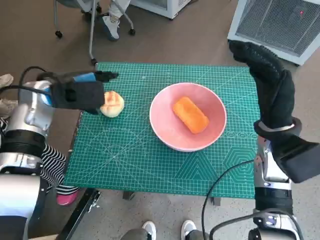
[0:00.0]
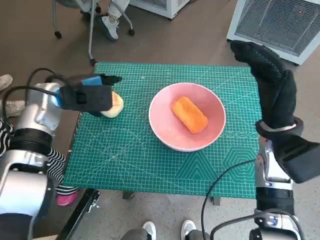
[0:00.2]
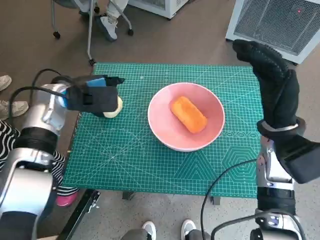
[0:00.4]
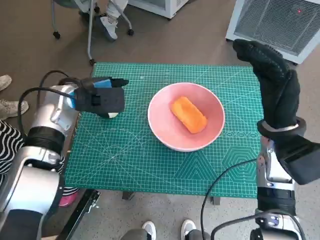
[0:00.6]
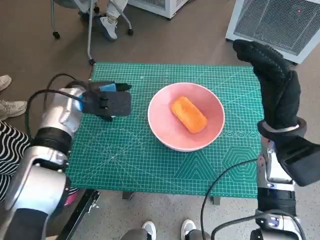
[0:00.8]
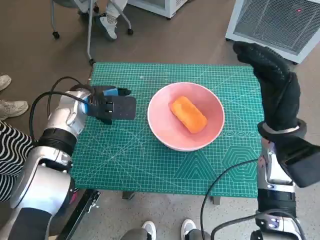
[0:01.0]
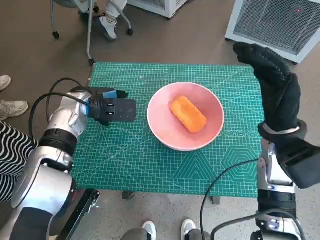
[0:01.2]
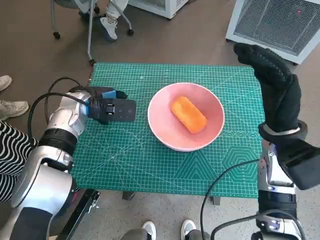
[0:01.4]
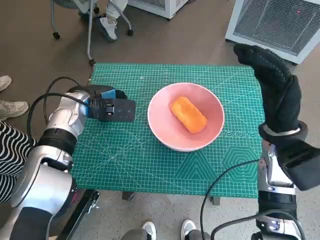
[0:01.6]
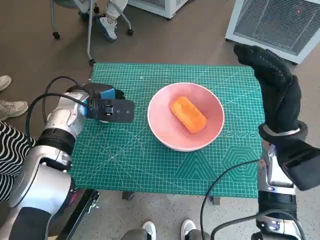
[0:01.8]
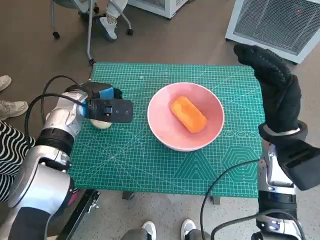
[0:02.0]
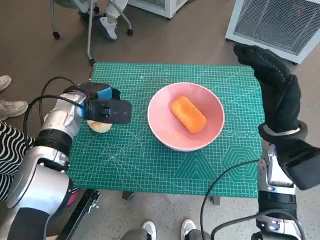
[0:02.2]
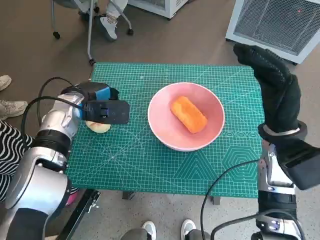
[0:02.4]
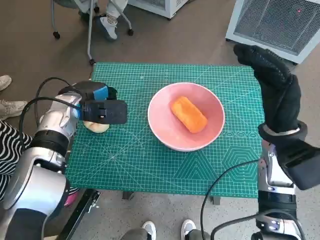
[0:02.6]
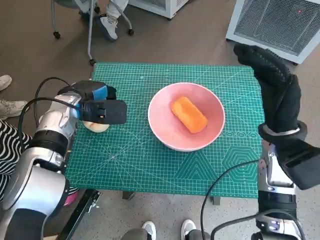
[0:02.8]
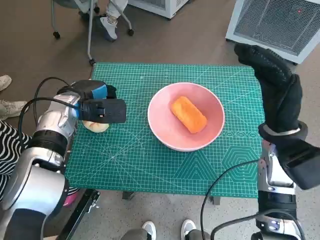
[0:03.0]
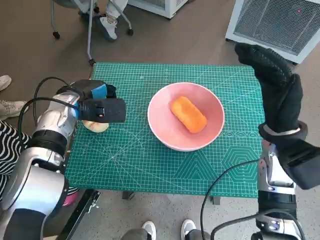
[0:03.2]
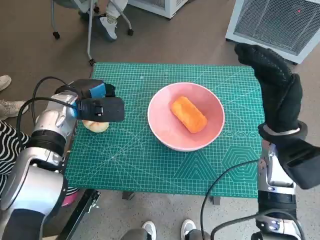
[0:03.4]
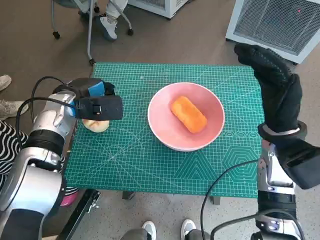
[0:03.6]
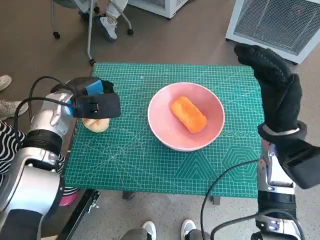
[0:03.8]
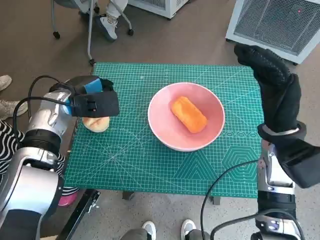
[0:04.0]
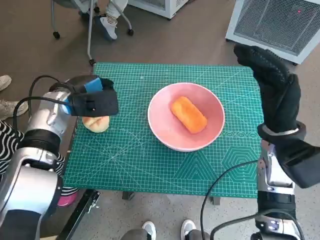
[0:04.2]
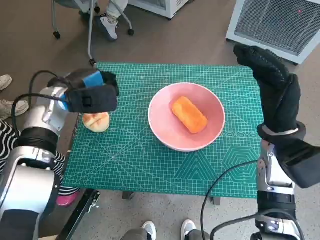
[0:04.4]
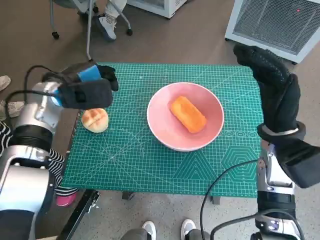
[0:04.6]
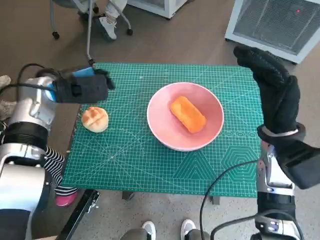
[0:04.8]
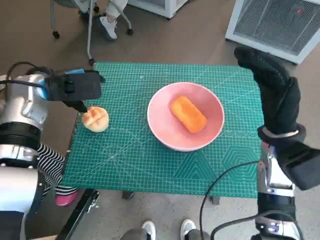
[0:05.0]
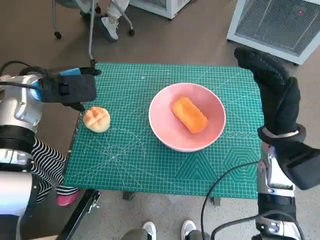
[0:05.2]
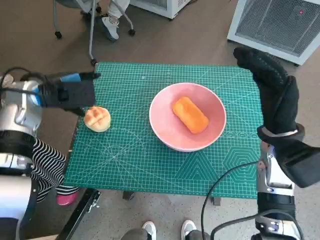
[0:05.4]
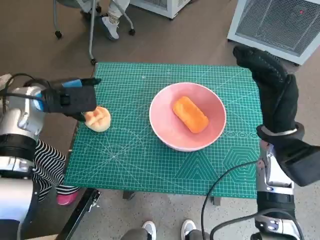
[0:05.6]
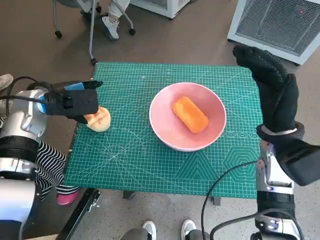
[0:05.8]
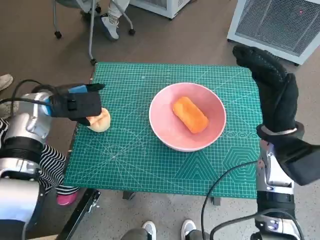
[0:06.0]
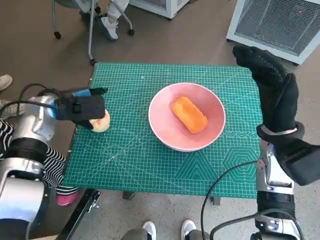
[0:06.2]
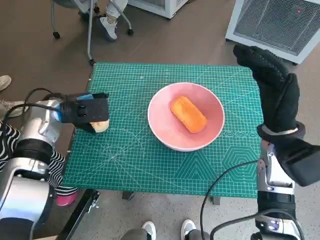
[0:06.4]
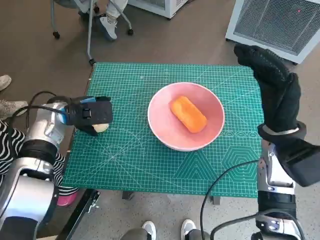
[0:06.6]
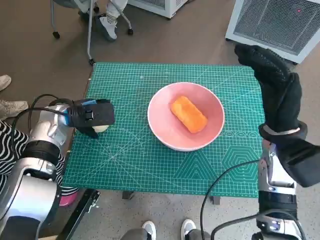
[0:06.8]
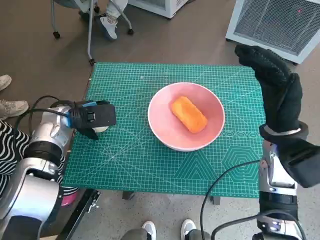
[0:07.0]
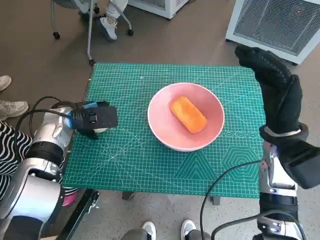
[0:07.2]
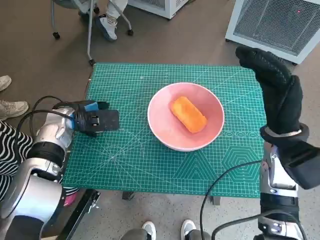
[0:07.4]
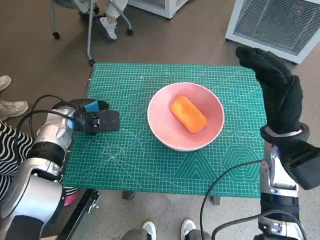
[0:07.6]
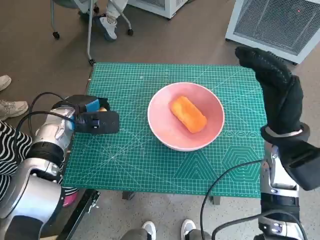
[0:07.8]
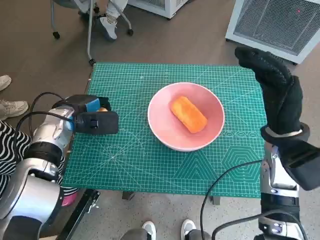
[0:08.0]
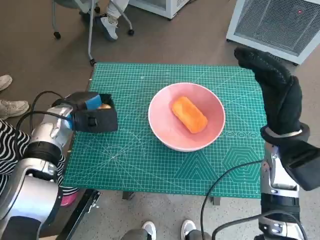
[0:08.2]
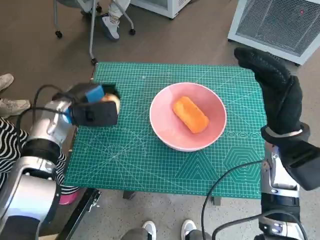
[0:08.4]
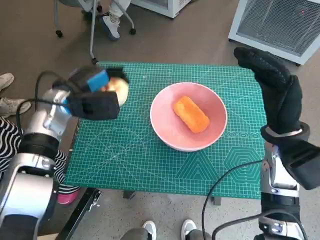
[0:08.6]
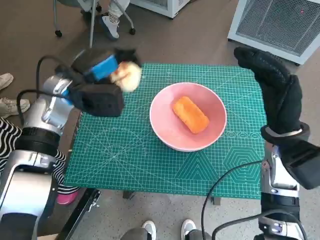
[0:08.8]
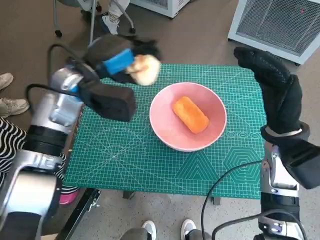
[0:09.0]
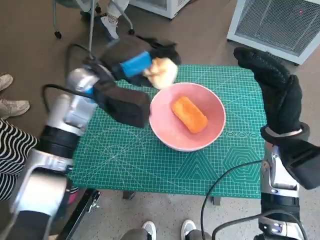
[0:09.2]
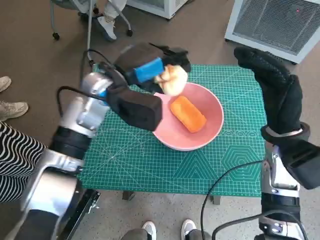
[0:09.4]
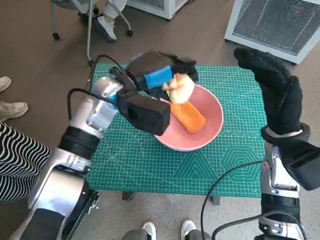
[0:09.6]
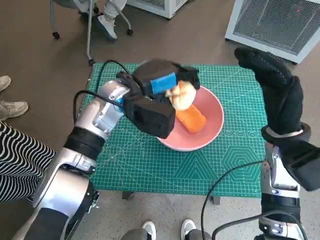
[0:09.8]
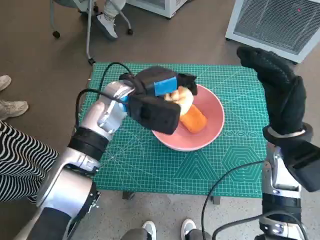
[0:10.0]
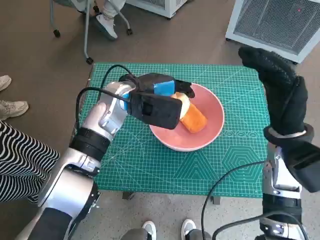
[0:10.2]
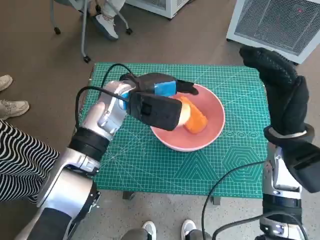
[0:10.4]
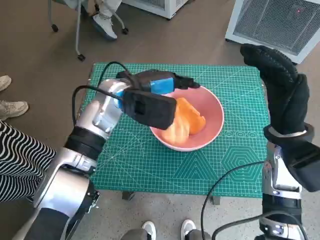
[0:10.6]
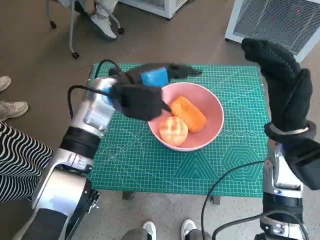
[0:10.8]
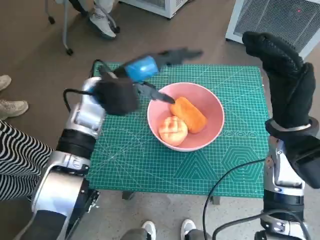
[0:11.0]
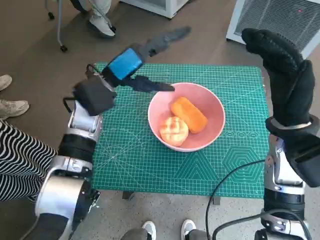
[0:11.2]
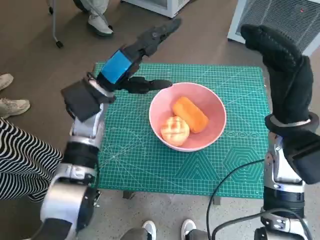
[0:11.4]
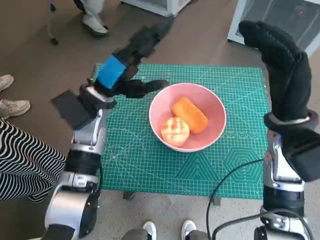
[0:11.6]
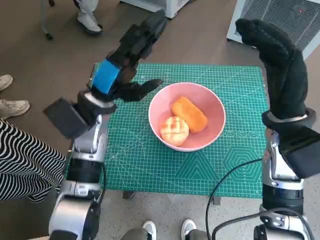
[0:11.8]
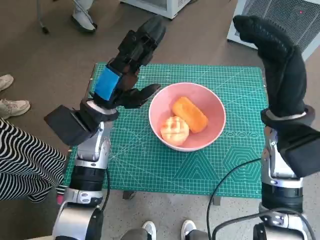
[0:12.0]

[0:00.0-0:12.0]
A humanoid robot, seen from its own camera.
Task of the whole recording: Push the bowl into the center of the table and put the bread into the bowl.
Step, 0:00.0 to 0:07.6: Grasp the round bread with left hand.
Step, 0:07.8 to 0:11.2: Place the round bread in pink bowl with left hand.
0:00.0 to 0:01.6: The left hand shifts roughly 5 cm downward.
0:01.6 to 0:03.0: The hands make only small movements.
0:03.0 to 0:04.4: The hands make only small movements.
0:04.4 to 0:06.0: The hands stay close to where they were, moving slightly.
0:06.0 to 0:07.6: The left hand travels downward by some 5 cm.
0:07.6 to 0:09.0: The left hand moves upward and to the right, roughly 15 cm.
0:09.0 to 0:10.4: The left hand goes approximately 10 cm to the right.
0:10.4 to 0:12.0: The left hand goes some 5 cm to the left.

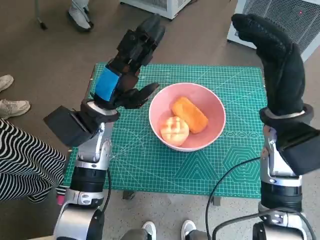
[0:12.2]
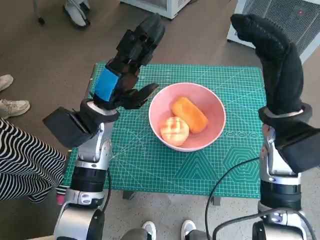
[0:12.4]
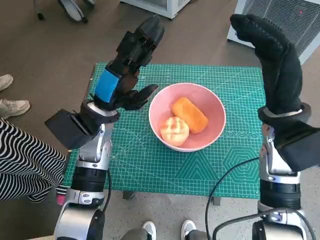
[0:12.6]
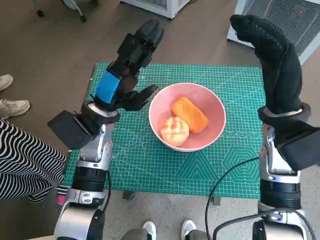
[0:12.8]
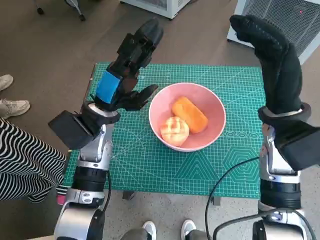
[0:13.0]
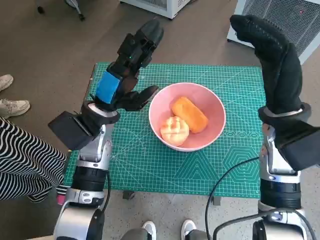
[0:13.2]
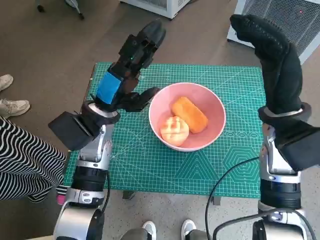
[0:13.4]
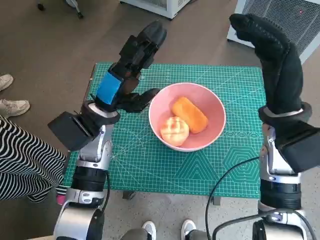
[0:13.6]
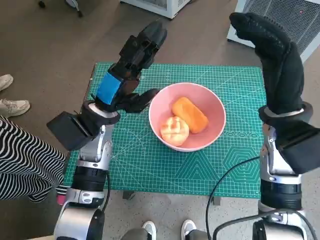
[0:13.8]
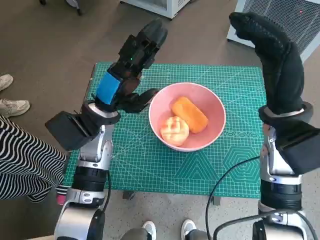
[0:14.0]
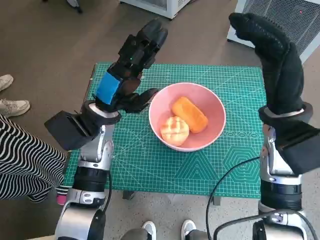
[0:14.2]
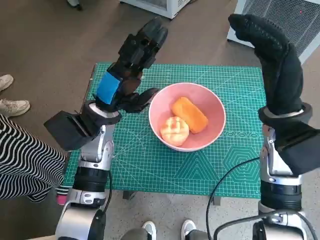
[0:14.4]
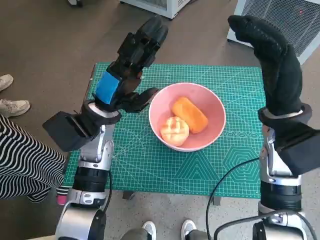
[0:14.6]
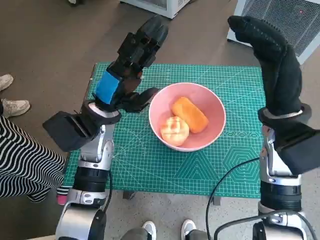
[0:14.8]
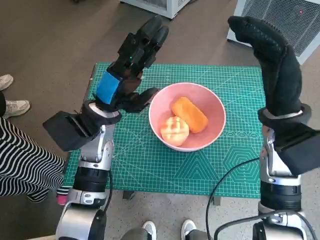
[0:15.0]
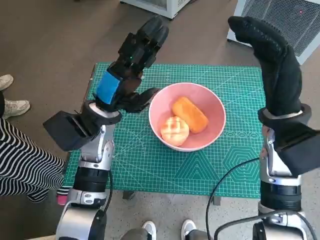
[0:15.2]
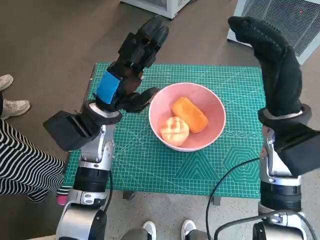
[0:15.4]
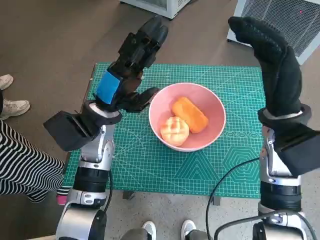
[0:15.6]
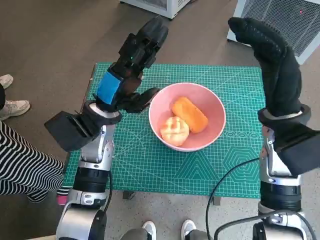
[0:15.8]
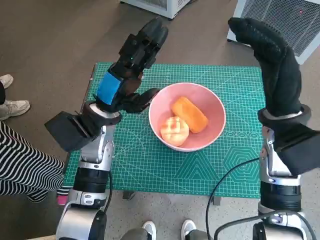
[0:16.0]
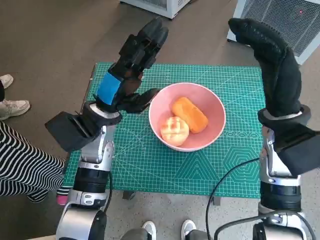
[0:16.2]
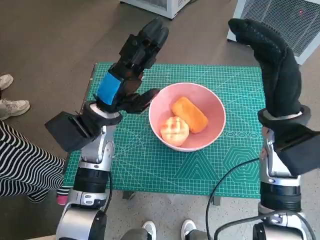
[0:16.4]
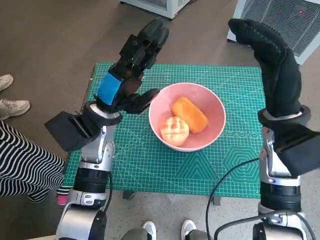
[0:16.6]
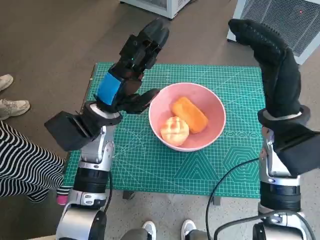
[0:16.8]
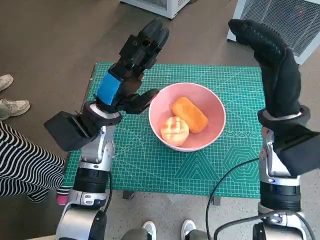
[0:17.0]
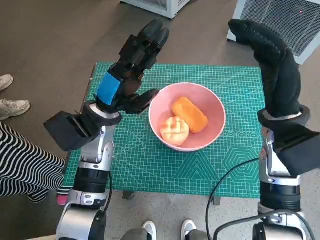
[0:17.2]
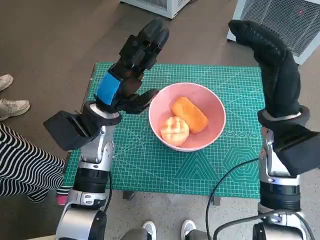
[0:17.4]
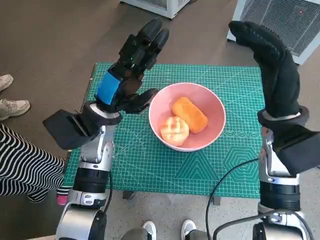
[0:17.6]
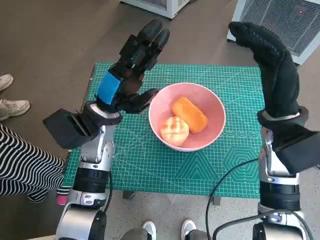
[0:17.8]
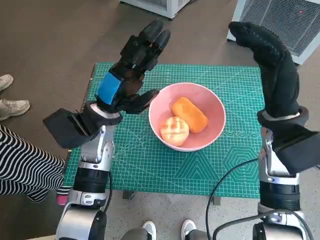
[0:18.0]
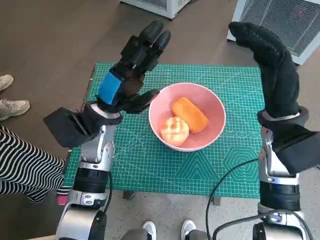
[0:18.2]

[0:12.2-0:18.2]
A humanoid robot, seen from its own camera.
Task of the whole recording: Push the bowl into the center of the table and put the bread into the bowl.
0:12.2 to 0:16.6: Neither hand changes place.
0:16.6 to 0:18.2: Both hands stay put.

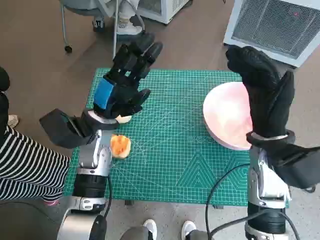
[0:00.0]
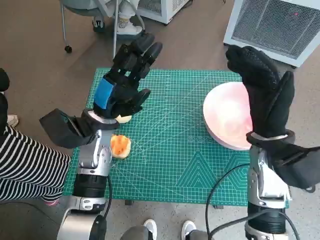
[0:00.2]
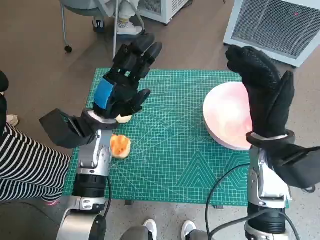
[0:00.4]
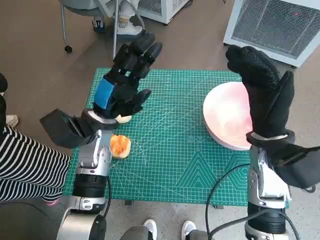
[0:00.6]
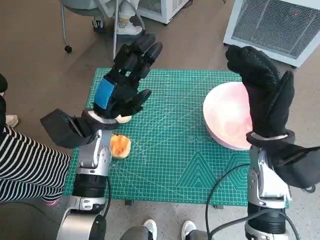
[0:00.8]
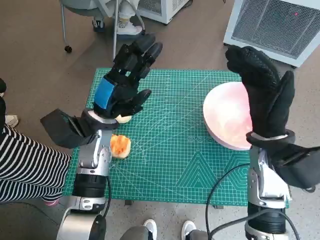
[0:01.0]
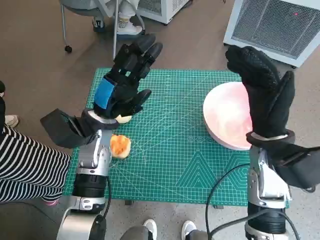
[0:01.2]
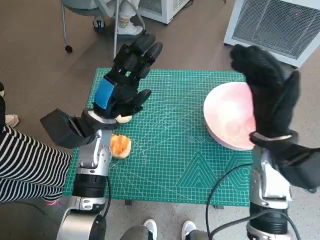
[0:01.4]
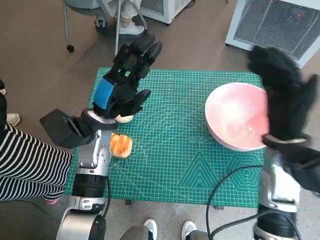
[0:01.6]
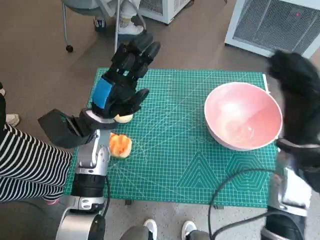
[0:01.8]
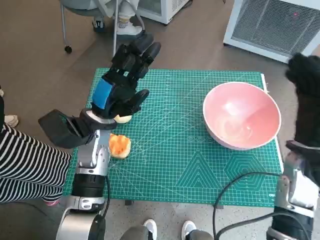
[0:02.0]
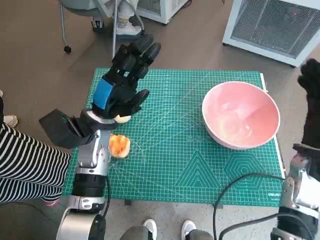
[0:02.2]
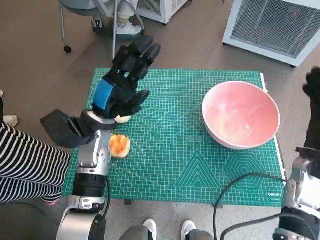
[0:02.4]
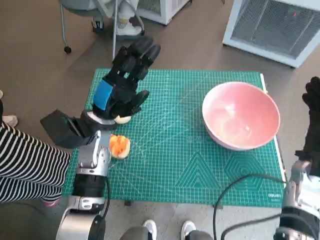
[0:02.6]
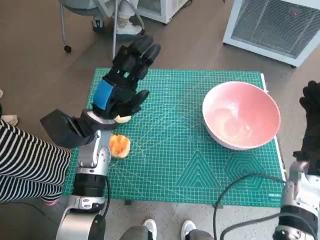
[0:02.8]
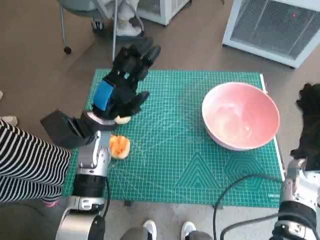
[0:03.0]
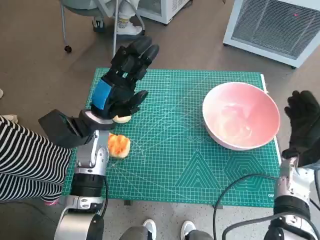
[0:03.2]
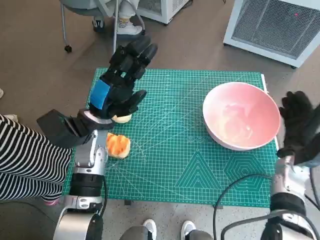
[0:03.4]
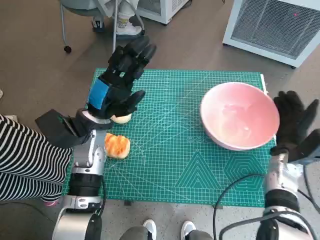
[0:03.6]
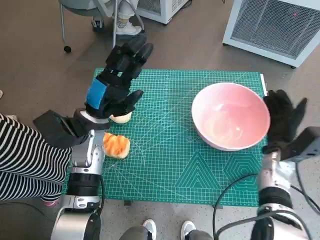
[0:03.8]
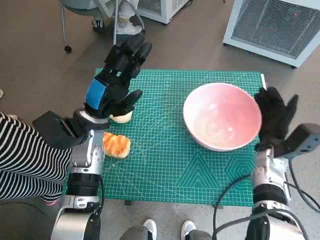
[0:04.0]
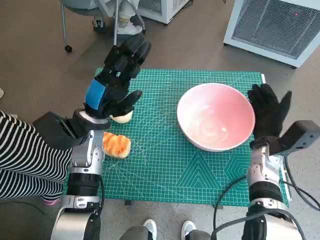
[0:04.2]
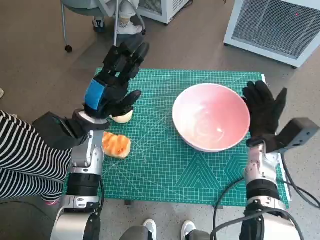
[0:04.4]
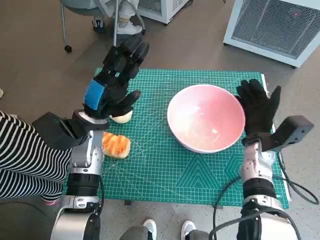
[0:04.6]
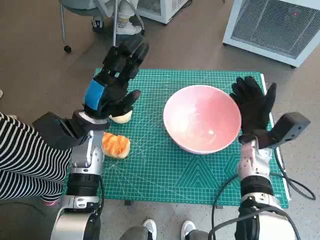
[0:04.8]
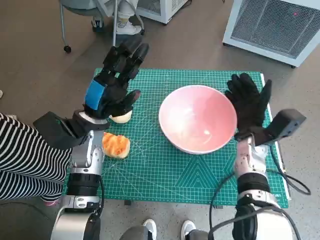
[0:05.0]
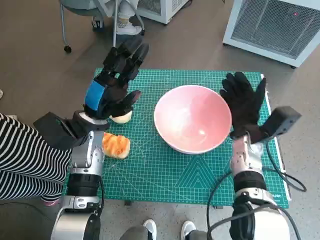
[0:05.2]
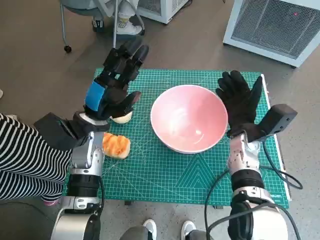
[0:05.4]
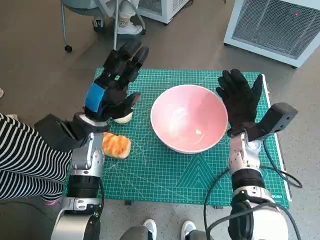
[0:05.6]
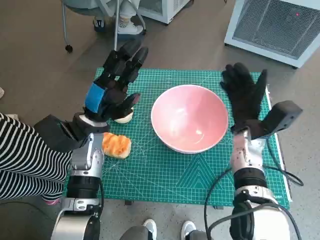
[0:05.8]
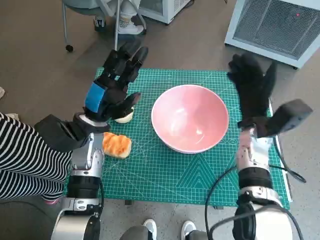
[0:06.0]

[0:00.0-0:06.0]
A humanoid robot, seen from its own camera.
Task of the whole recording: Push the bowl into the center of the table and put the bread into the bowl.
Step, 0:00.0 to 0:05.6: Move the pink bowl to the center of table with right hand.
0:01.6 to 0:03.0: The right hand goes approximately 10 cm to the right and downward.
0:03.0 to 0:04.4: The right hand goes about 5 cm to the left.
0:04.4 to 0:06.0: The right hand moves approximately 5 cm.
